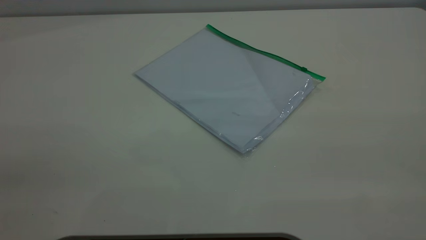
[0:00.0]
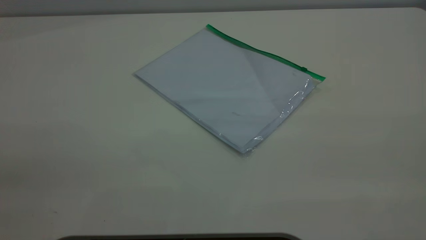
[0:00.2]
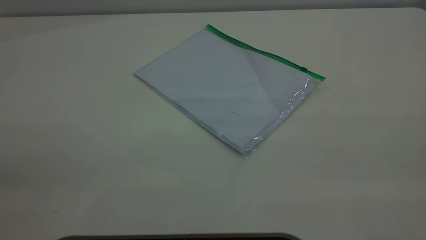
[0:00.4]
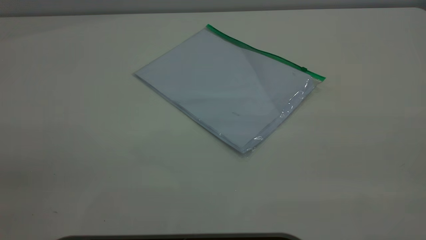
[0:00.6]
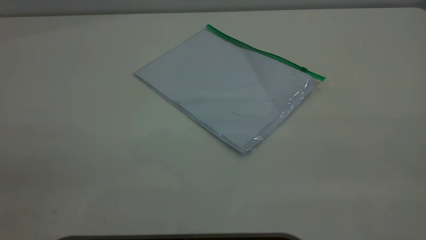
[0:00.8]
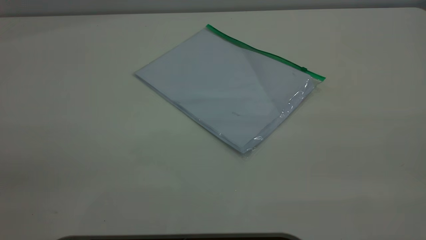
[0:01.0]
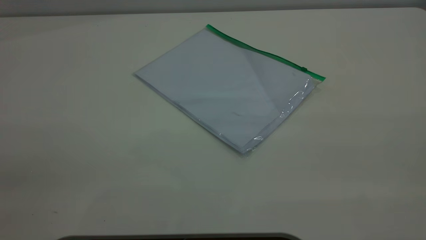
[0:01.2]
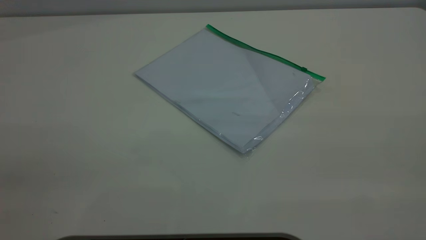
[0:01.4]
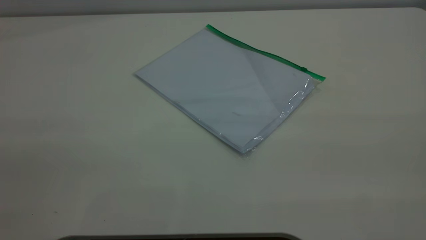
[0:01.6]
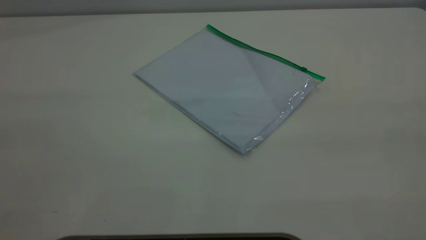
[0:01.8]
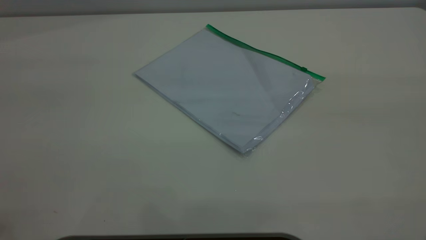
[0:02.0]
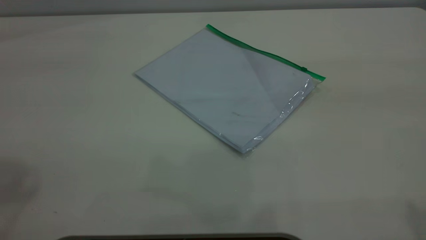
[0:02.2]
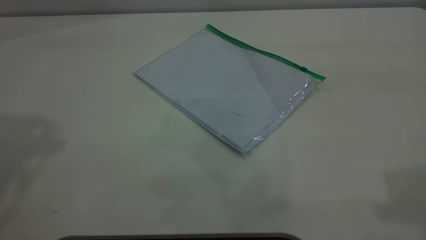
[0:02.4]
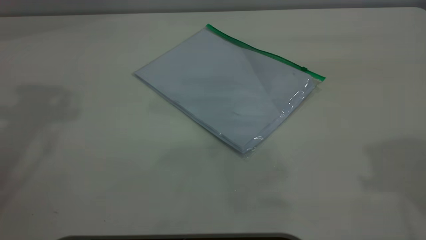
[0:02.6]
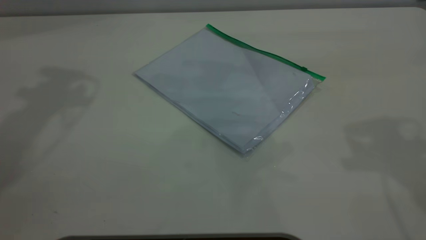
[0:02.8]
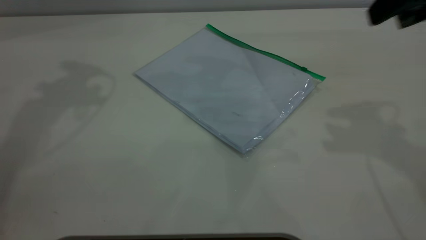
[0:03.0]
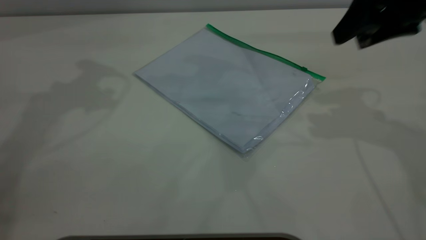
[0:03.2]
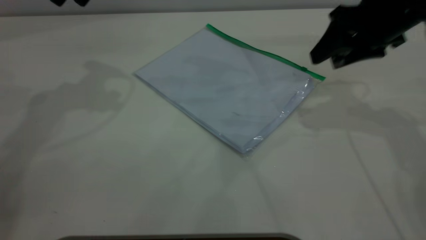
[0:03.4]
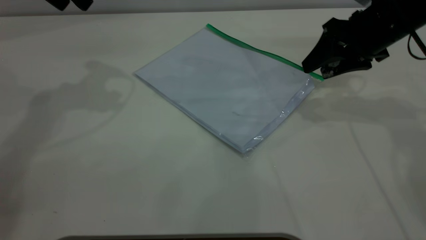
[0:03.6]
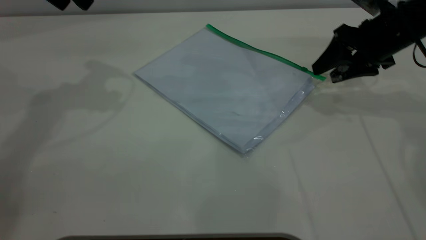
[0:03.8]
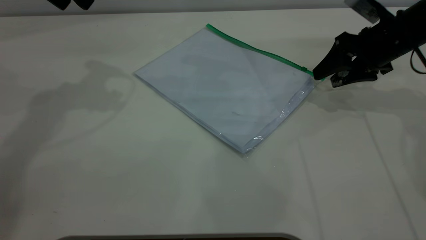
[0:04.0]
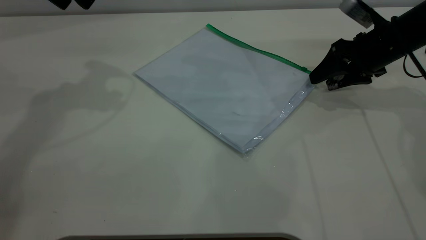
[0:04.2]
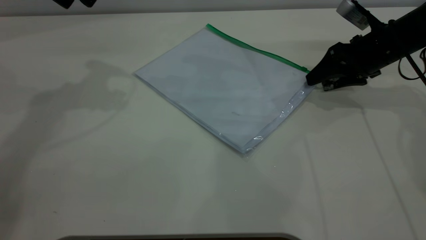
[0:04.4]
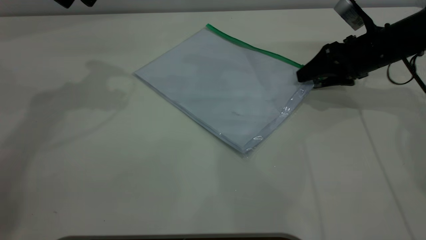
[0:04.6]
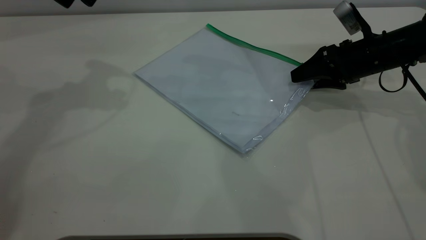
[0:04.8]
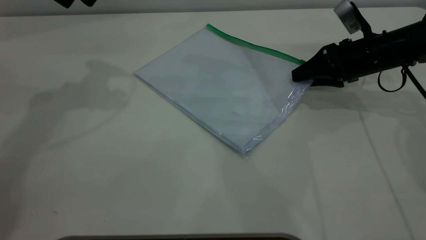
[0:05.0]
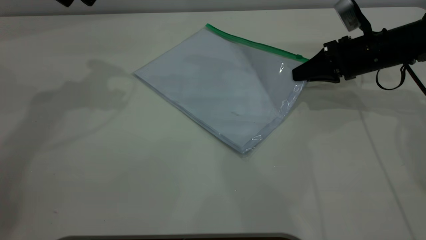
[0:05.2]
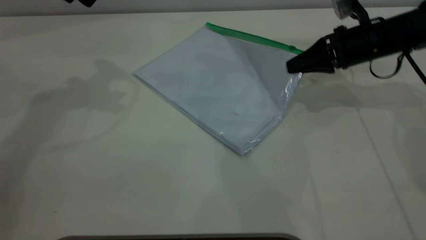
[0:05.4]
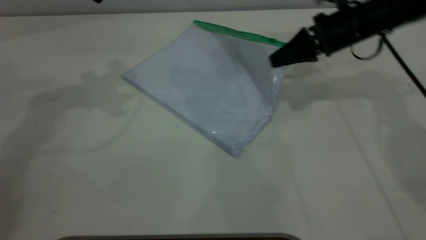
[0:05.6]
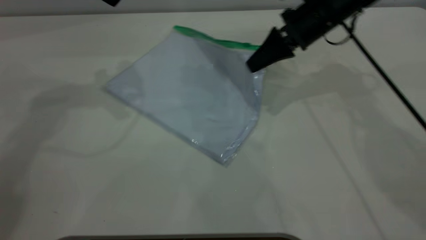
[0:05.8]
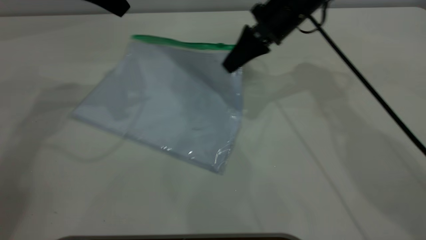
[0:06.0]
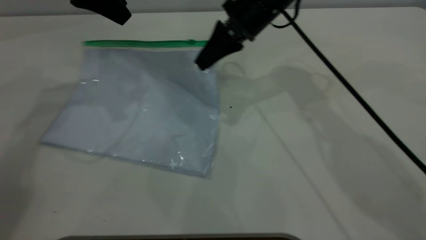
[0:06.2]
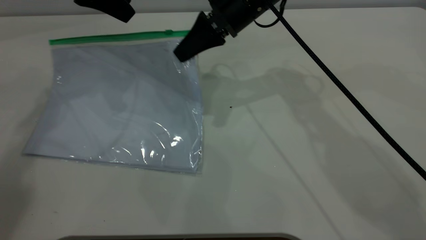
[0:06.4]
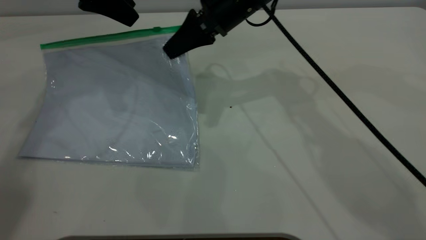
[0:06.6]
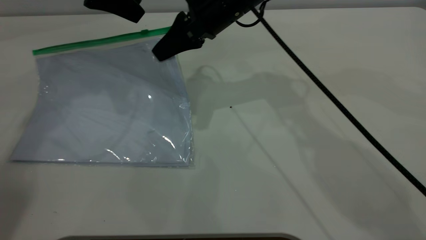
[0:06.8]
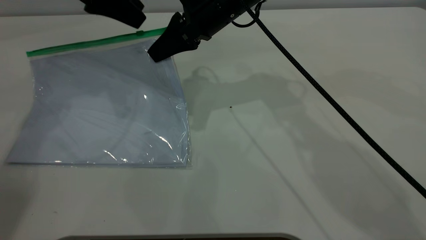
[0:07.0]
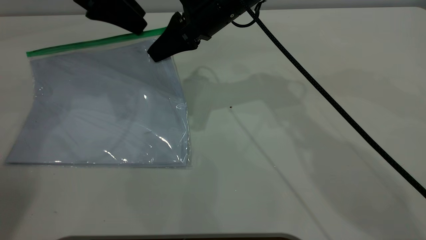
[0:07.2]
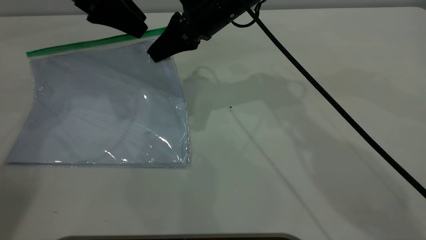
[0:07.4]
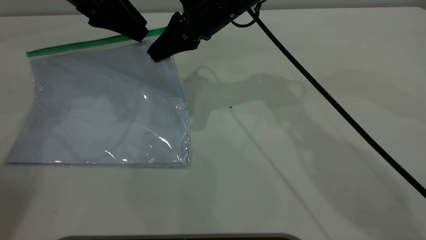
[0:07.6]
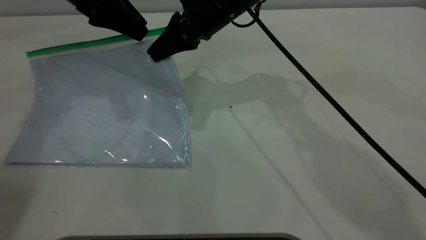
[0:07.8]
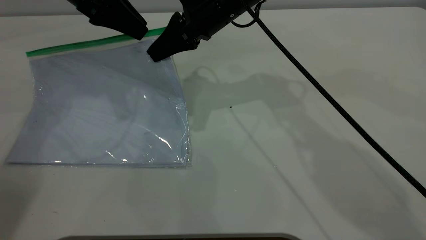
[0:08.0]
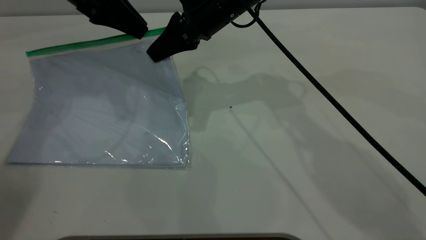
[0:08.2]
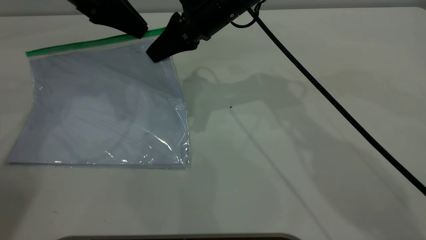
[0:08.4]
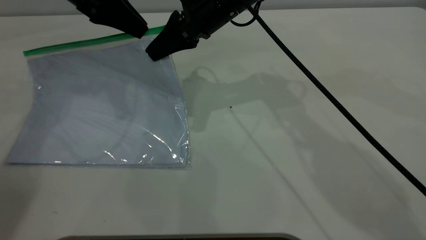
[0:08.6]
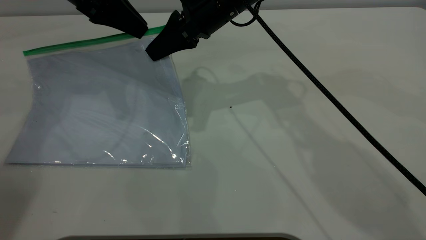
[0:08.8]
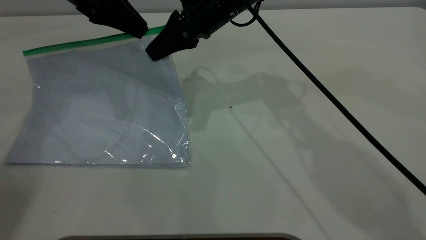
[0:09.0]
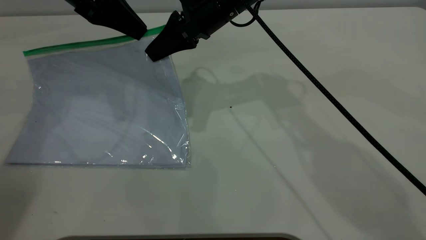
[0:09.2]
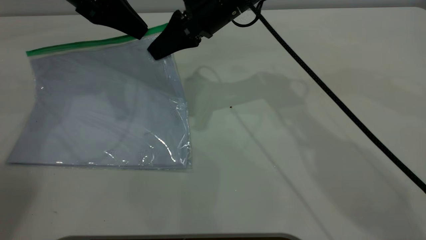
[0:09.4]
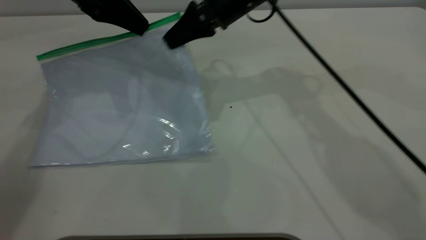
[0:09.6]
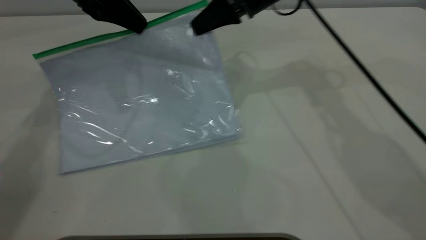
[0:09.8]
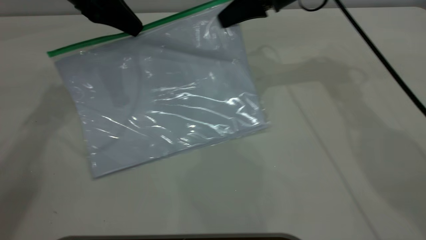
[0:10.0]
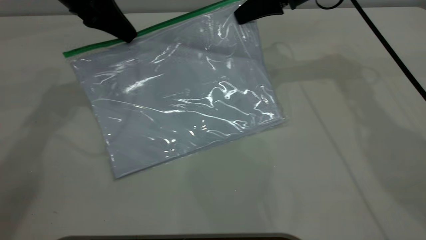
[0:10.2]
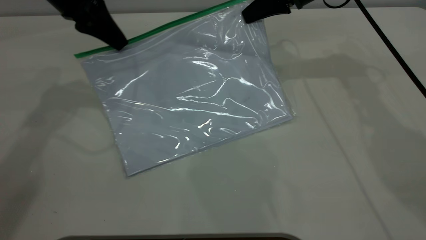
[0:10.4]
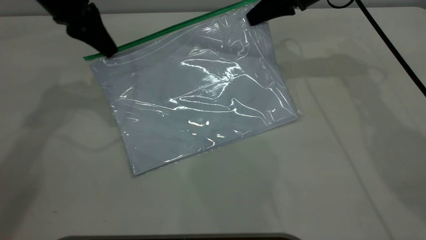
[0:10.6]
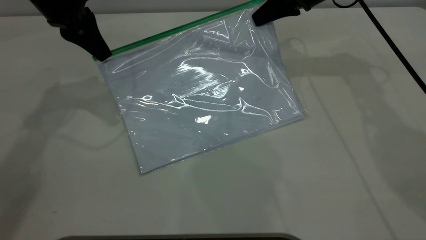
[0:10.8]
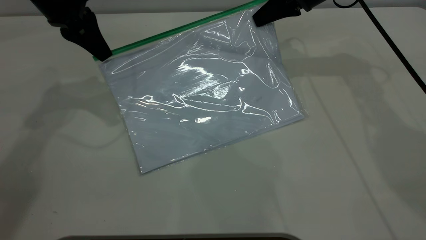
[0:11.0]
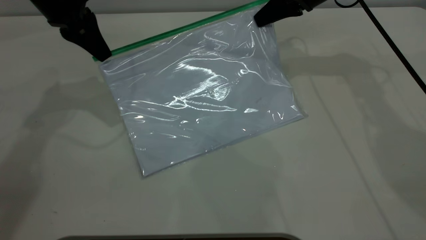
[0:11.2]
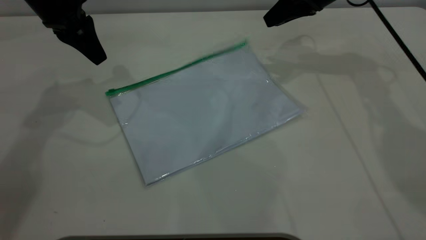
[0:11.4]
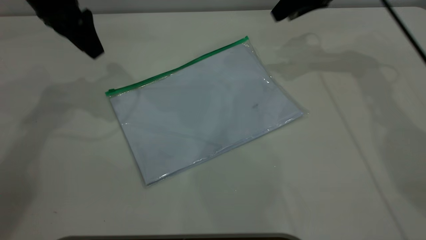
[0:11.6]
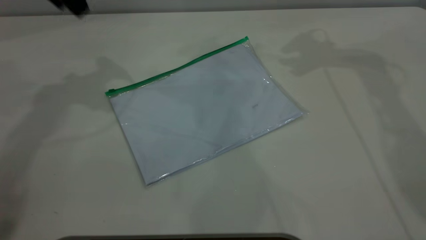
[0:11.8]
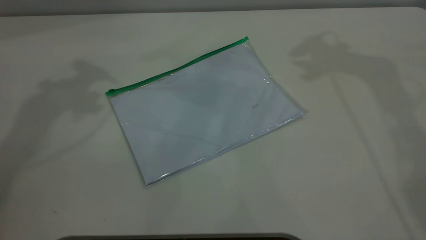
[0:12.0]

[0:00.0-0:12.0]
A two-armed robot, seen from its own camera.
Step, 0.0 to 5.0 s: Pick up the transparent plastic bag with the right gripper.
Step, 5.4 to 11.0 s: Pulling up the zipper on the transparent plastic bag with the left gripper to close it.
1.6 to 3.0 s: The right gripper shifts about 30 cm forward.
3.0 to 4.4 s: The right gripper is displaced downward and forward by roughly 25 cm.
4.4 to 6.0 s: The right gripper travels to the left by some 15 cm, and closes up.
6.0 to 7.6 s: The right gripper travels to the left by some 10 cm.
7.6 to 9.0 s: The left gripper closes its fingers.
9.0 to 10.4 s: The right gripper goes some 20 cm to the right and forward.
10.4 to 12.0 s: The two grippers go approximately 20 cm upward. The left gripper opens its fingers, while the right gripper opens up.

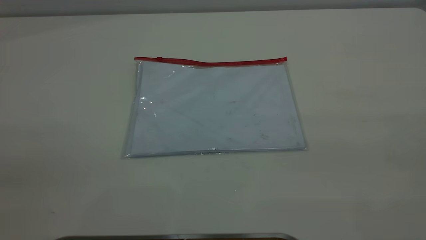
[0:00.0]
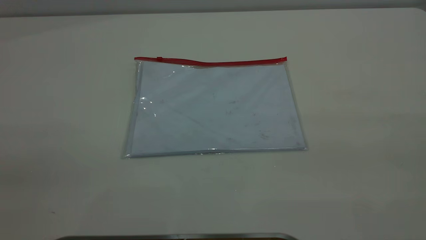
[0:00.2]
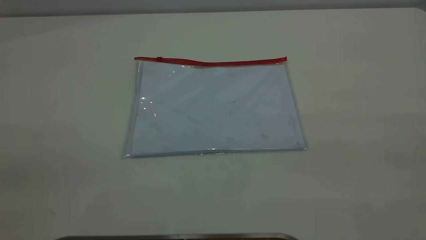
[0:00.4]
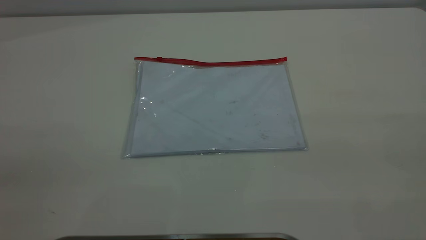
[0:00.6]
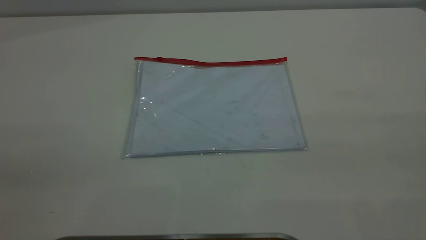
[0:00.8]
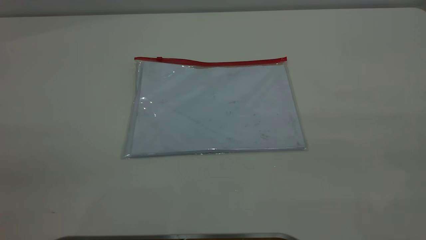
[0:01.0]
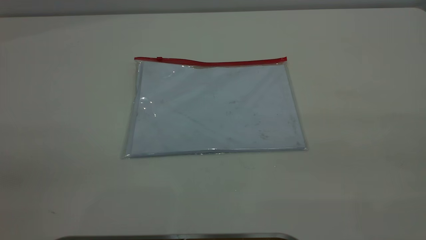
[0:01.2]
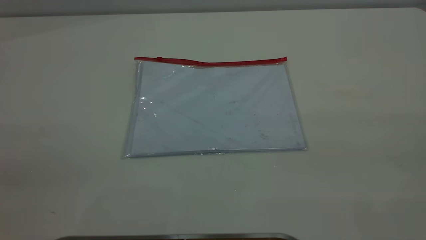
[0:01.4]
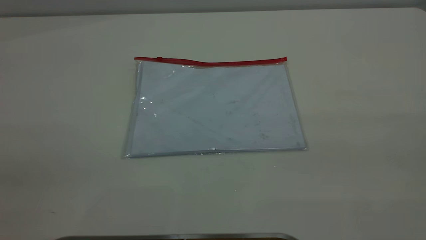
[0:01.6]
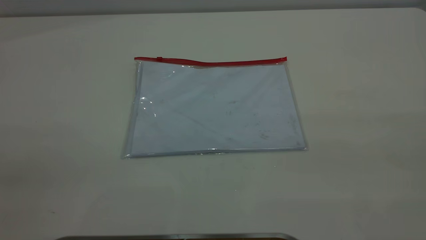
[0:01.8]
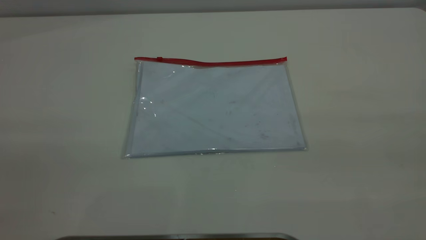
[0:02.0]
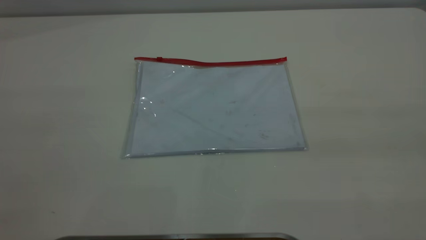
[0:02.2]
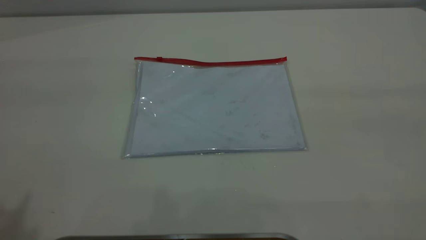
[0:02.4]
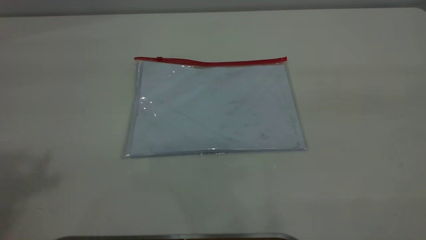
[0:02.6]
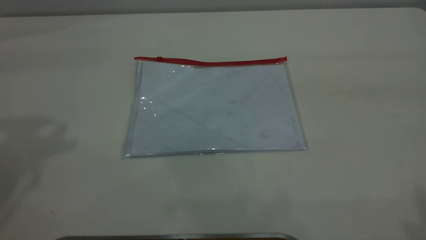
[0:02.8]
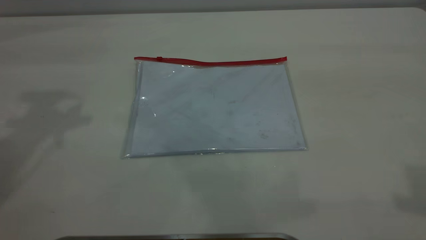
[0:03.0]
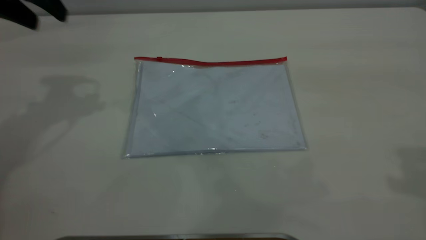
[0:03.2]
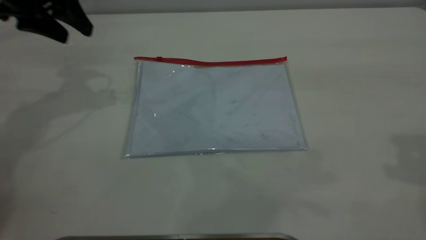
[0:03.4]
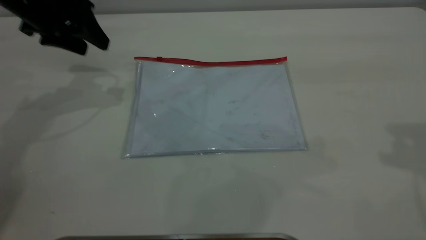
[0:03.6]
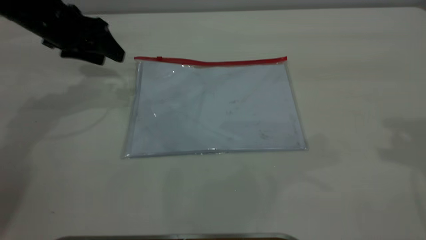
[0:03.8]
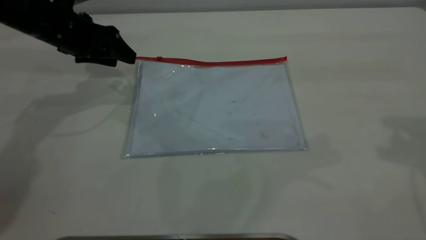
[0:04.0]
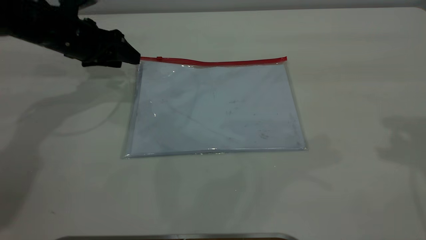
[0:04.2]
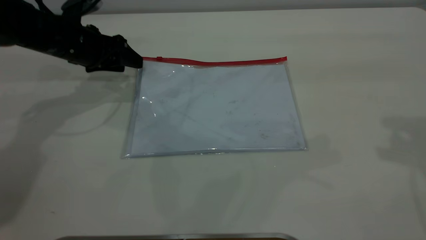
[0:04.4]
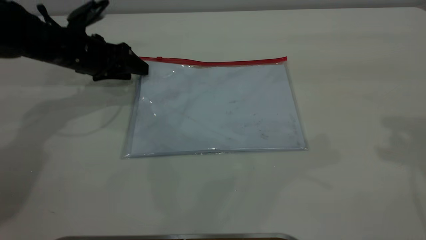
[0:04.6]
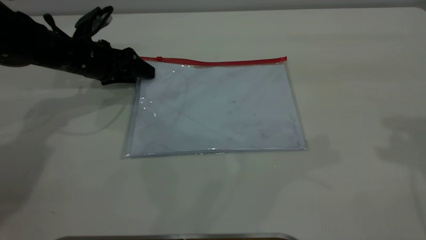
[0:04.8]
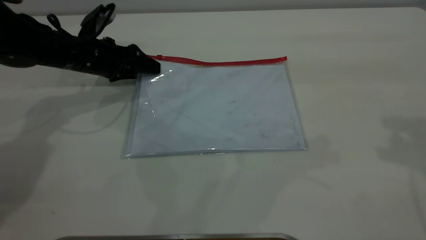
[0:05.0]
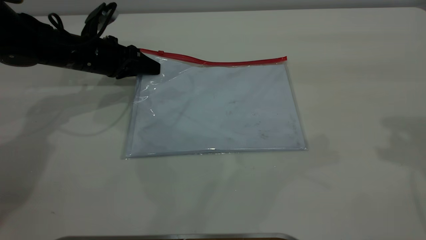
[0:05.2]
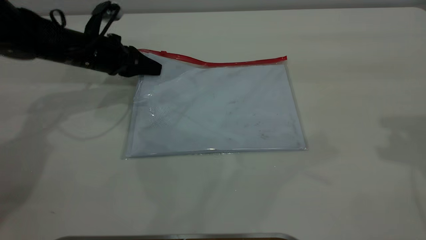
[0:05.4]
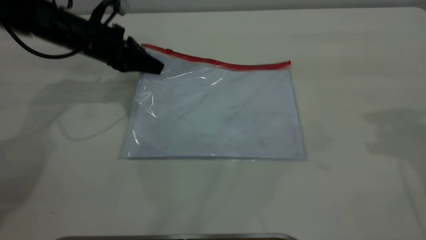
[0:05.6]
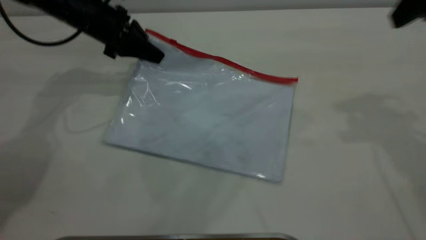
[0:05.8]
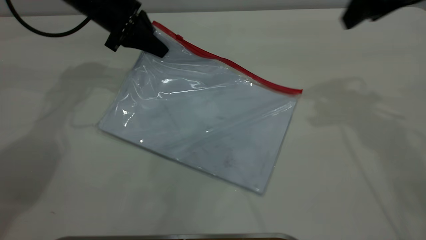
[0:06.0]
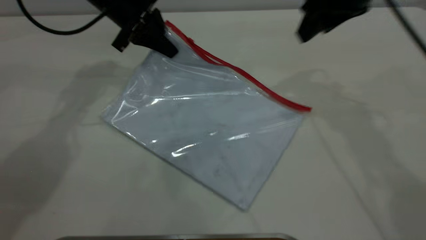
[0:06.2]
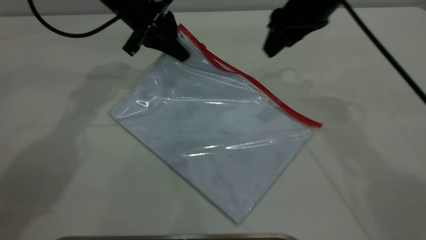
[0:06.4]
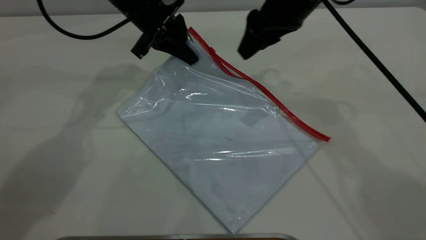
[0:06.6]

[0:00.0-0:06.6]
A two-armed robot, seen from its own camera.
Step, 0.0 to 5.8 s: Pick up the transparent plastic bag with the left gripper.
0.0 to 1.6 s: The two grippers keep their place.
1.6 to 3.2 s: The left gripper goes approximately 40 cm forward.
3.2 to 5.0 s: The right gripper is displaced forward by approximately 5 cm. Meanwhile the left gripper shifts approximately 20 cm downward.
5.0 to 6.6 s: The right gripper goes approximately 25 cm to the left, forward and downward. The left gripper heads to the right and upward, covering approximately 15 cm, and closes up.
